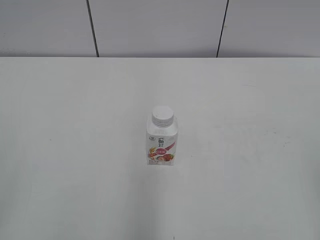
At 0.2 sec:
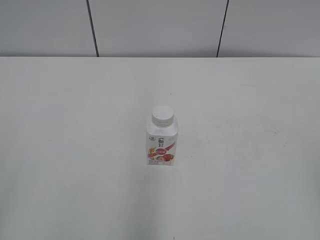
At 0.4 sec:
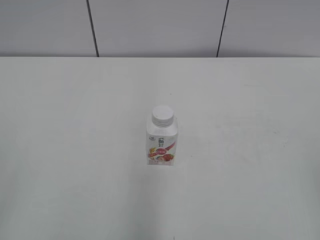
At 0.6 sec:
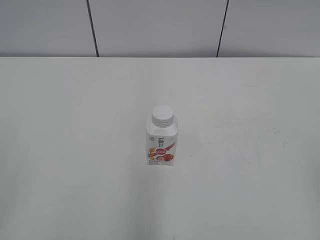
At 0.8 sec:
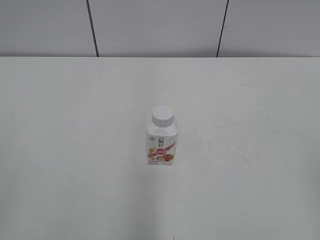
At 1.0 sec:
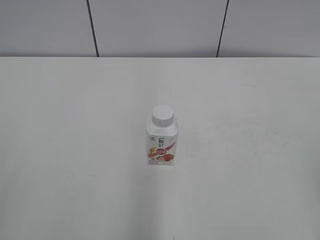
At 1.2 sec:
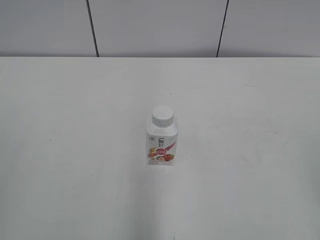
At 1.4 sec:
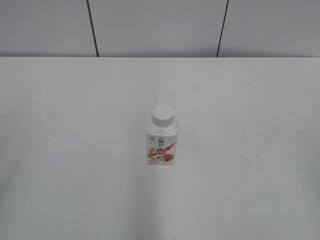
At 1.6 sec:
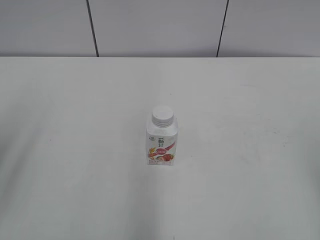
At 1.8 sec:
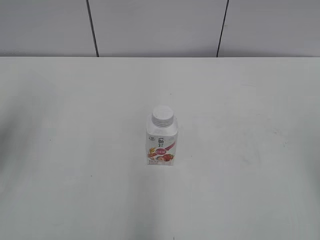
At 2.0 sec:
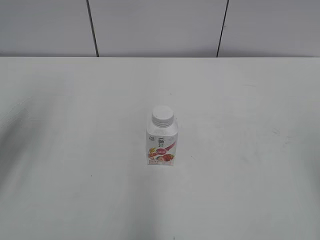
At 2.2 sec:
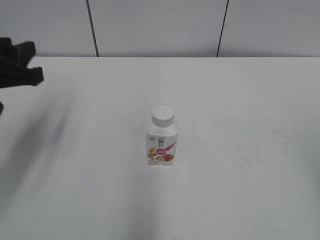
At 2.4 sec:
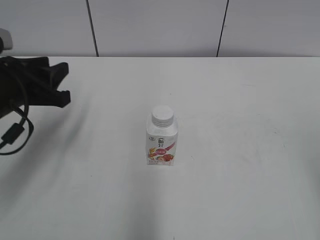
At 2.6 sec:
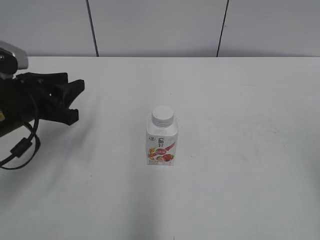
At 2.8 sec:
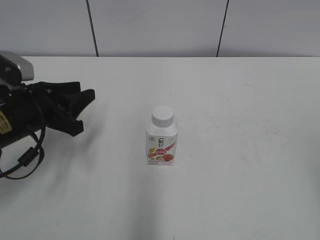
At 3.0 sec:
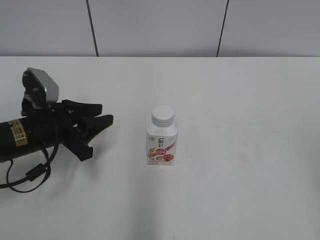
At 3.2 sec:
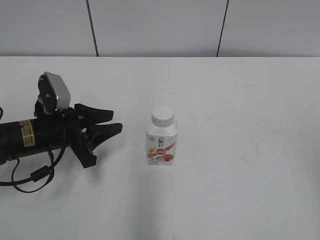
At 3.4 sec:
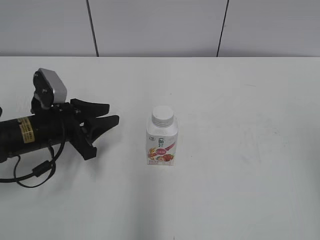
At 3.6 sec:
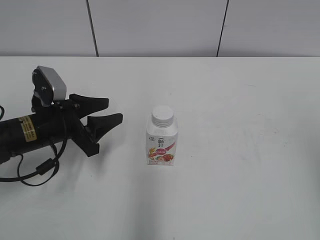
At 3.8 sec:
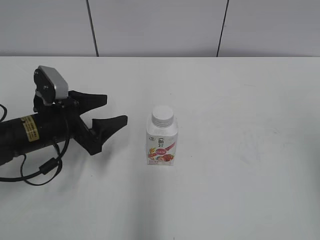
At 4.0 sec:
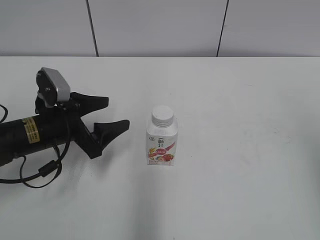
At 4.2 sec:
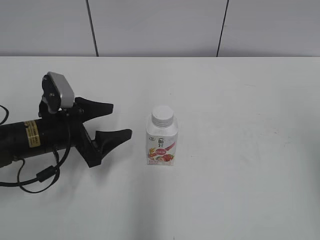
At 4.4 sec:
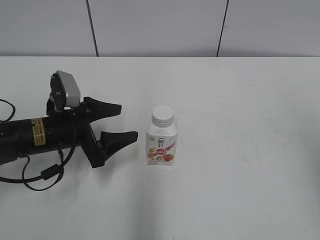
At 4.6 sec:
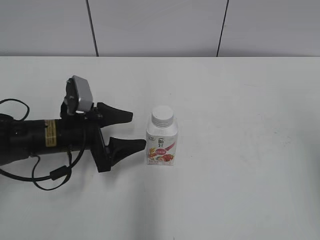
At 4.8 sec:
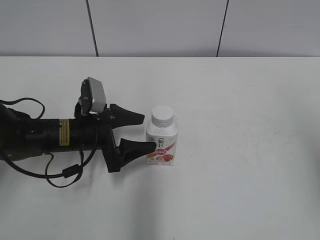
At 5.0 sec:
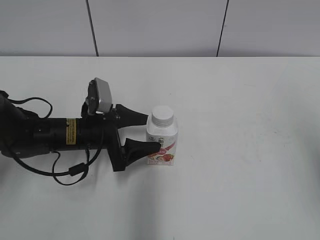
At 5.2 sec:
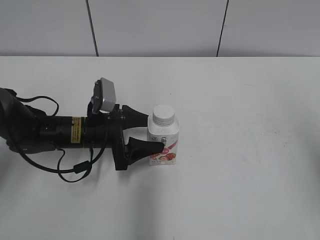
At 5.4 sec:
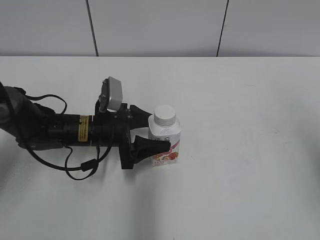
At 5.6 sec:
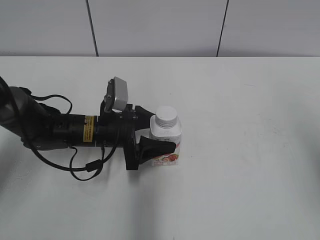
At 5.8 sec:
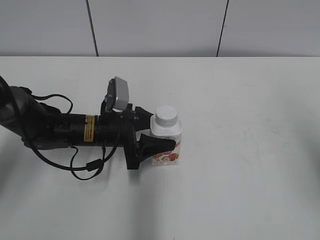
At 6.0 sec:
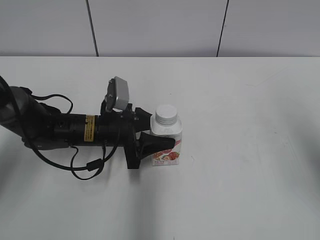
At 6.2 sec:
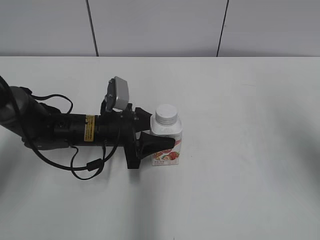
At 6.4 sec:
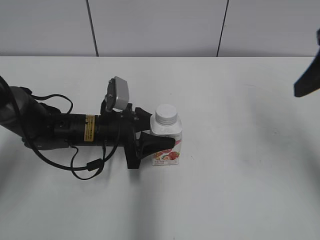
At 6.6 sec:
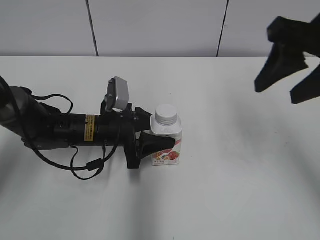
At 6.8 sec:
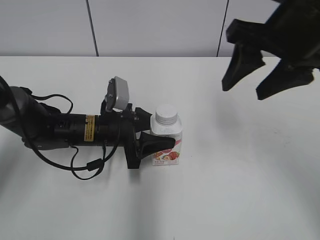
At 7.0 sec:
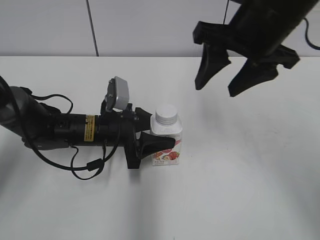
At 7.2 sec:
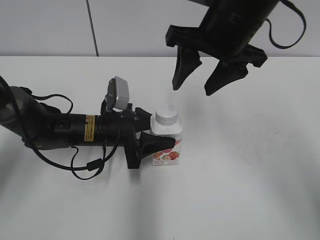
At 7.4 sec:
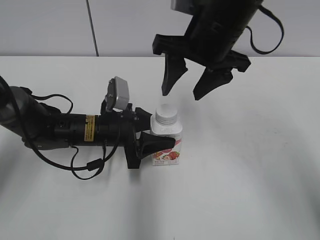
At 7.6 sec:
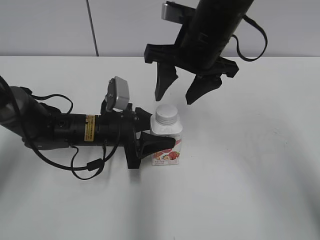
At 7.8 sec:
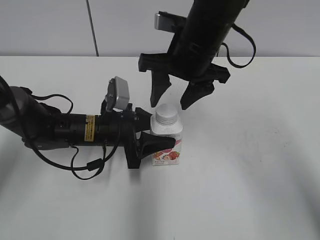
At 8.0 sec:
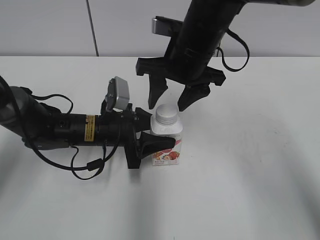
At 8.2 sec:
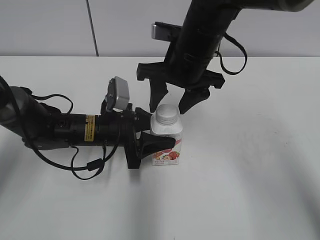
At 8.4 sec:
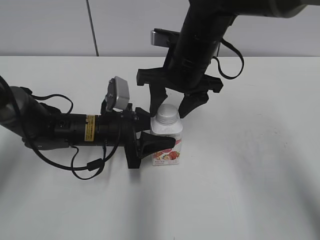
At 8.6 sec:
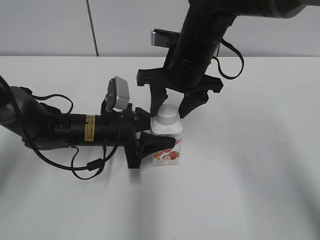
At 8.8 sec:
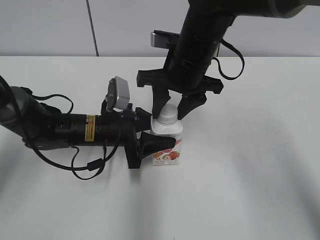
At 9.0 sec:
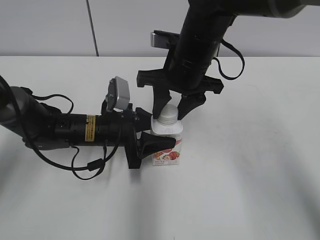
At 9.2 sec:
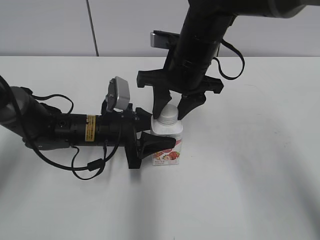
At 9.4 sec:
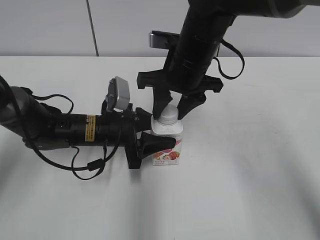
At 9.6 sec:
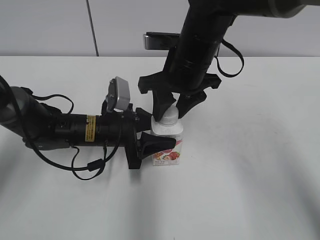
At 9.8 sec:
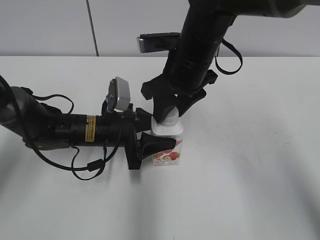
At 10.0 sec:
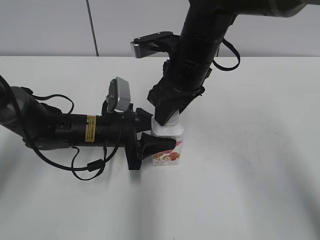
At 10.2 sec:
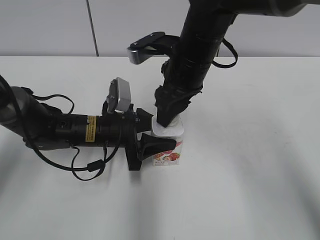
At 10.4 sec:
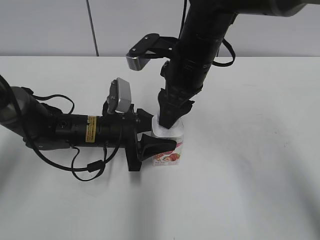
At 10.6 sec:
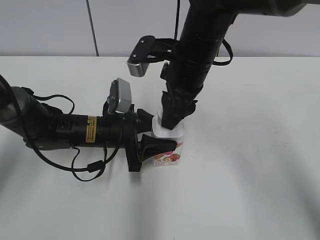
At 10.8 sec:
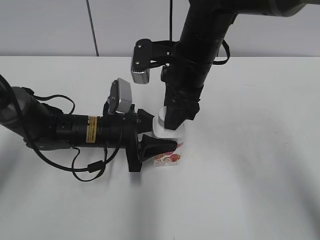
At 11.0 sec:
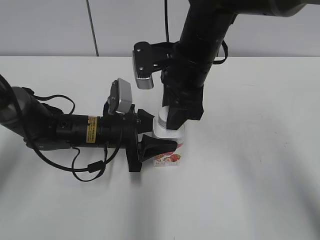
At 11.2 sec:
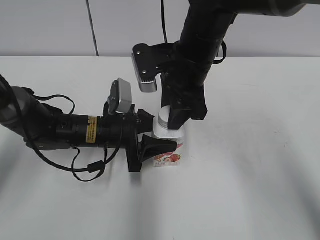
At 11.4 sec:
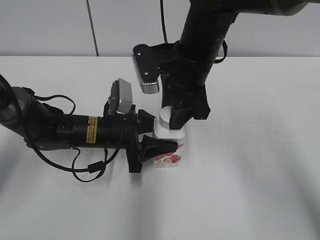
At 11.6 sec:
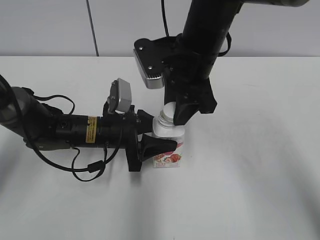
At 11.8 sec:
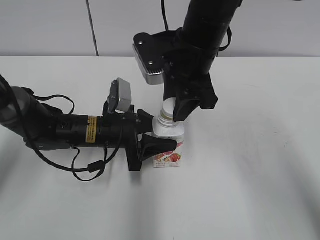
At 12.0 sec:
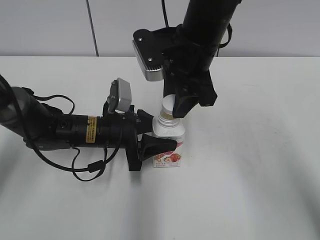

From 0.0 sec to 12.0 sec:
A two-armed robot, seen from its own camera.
Step, from 0.0 sec to 5.8 sec: Grasp the bottle and move it to the center of the table with the left gripper.
From 1.6 sec to 3.0 sec: The left gripper travels downward, forward and to the right by roughly 30 cm.
From 3.0 sec to 4.4 sec: The right gripper heads forward, covering about 5 cm, while the left gripper opens its fingers.
From 4.4 sec to 6.0 sec: The left gripper moves to the right, approximately 5 cm, and closes up; the right gripper shifts roughly 5 cm forward.
From 6.0 sec to 7.6 sec: The right gripper travels to the left and forward by some 30 cm.
From 7.6 sec to 9.0 sec: The right gripper changes place by some 5 cm, and closes up.

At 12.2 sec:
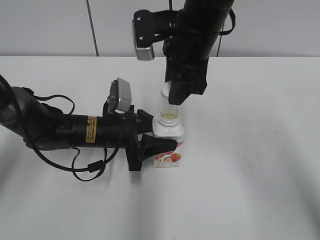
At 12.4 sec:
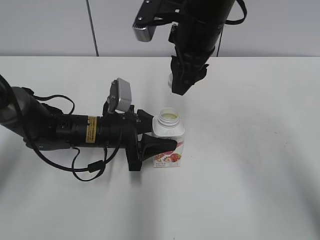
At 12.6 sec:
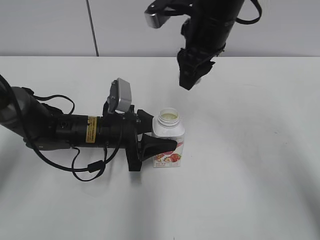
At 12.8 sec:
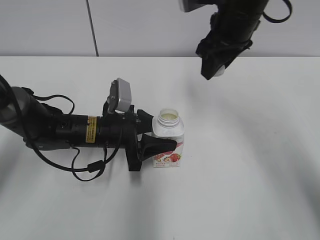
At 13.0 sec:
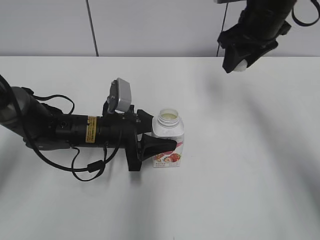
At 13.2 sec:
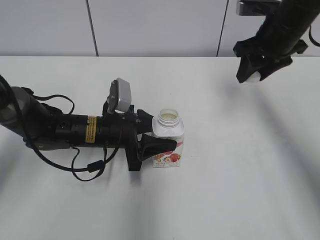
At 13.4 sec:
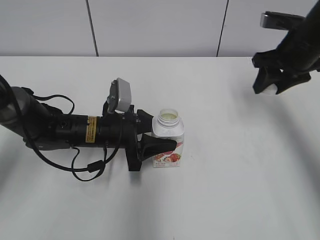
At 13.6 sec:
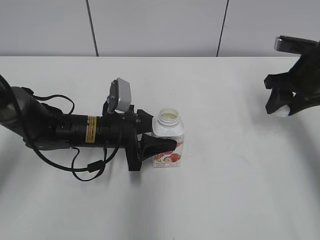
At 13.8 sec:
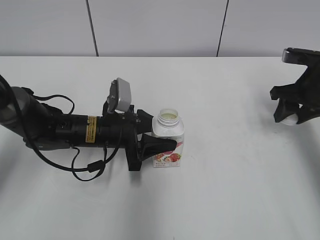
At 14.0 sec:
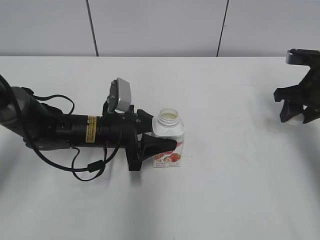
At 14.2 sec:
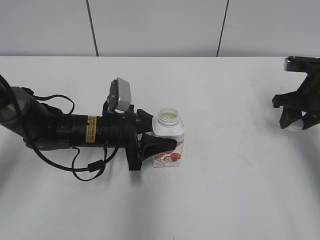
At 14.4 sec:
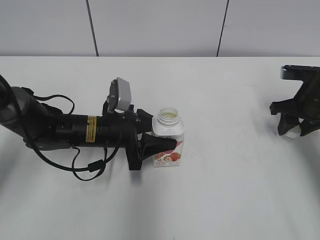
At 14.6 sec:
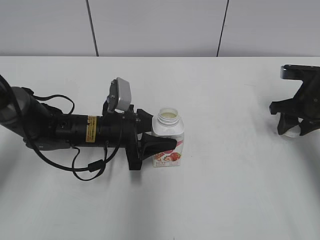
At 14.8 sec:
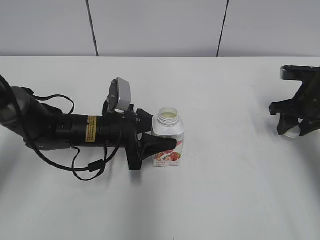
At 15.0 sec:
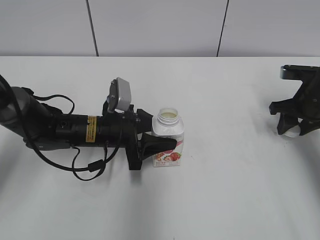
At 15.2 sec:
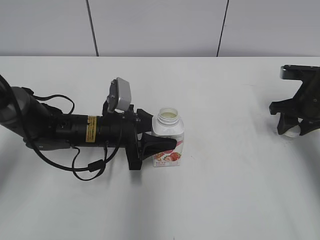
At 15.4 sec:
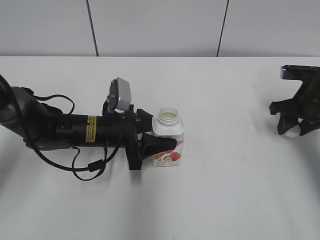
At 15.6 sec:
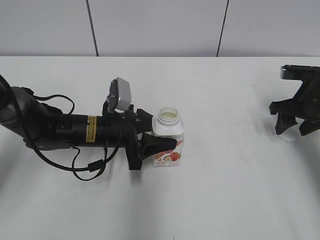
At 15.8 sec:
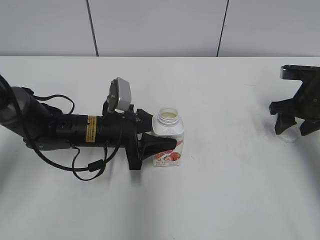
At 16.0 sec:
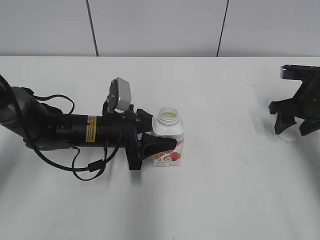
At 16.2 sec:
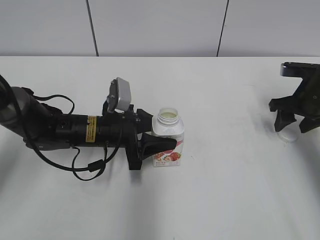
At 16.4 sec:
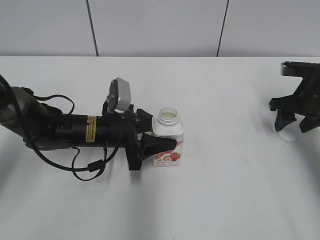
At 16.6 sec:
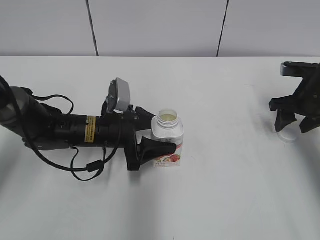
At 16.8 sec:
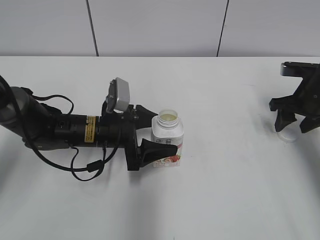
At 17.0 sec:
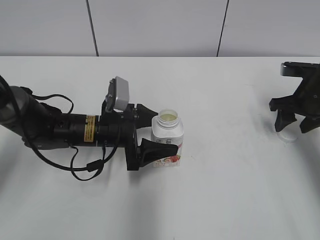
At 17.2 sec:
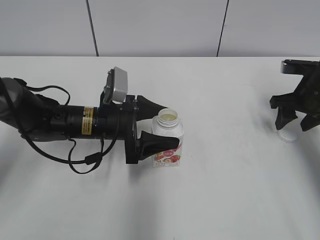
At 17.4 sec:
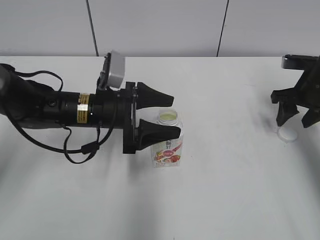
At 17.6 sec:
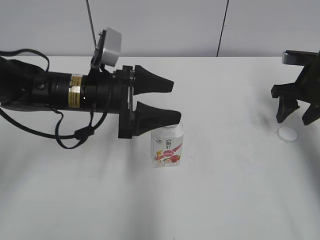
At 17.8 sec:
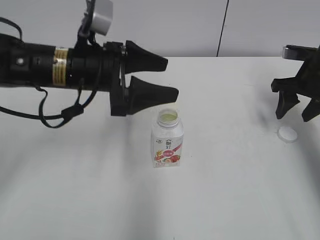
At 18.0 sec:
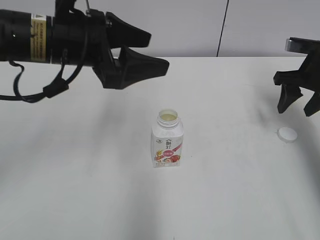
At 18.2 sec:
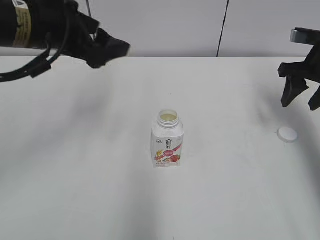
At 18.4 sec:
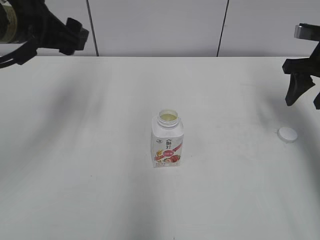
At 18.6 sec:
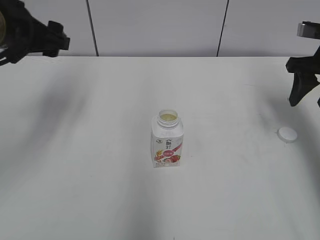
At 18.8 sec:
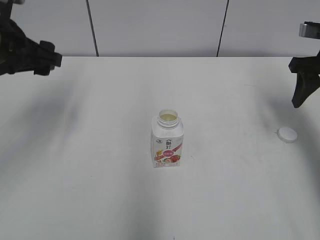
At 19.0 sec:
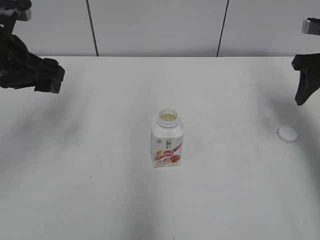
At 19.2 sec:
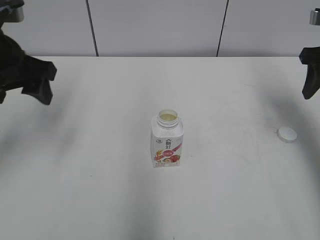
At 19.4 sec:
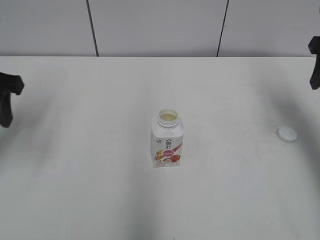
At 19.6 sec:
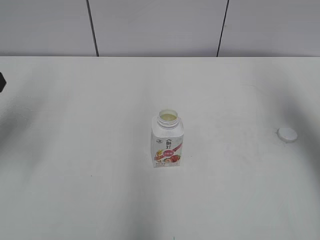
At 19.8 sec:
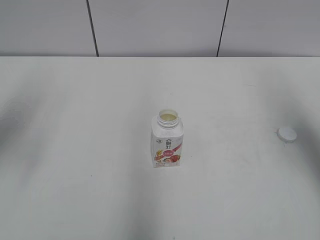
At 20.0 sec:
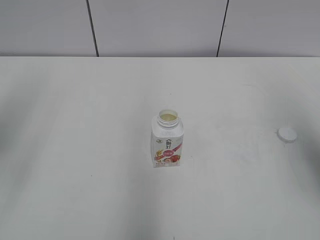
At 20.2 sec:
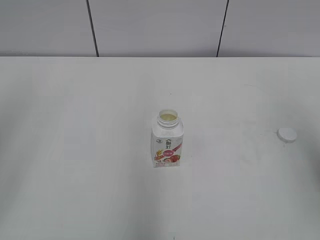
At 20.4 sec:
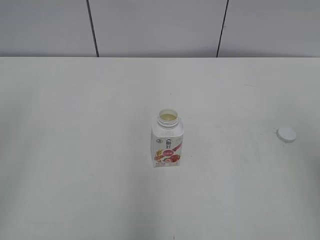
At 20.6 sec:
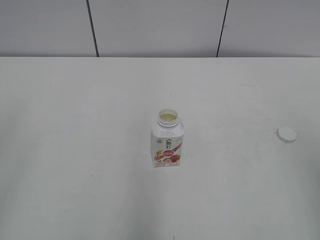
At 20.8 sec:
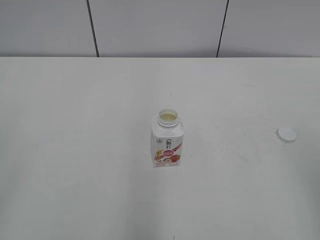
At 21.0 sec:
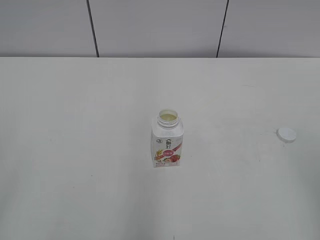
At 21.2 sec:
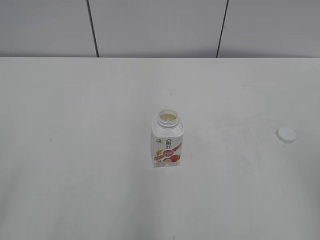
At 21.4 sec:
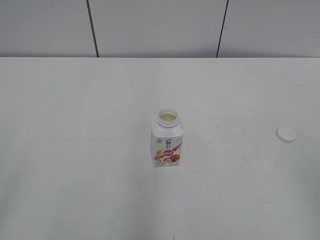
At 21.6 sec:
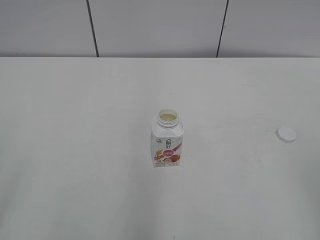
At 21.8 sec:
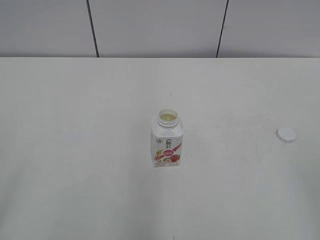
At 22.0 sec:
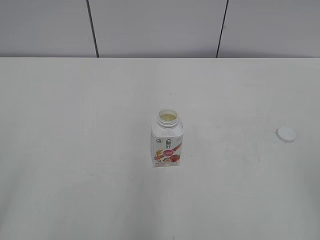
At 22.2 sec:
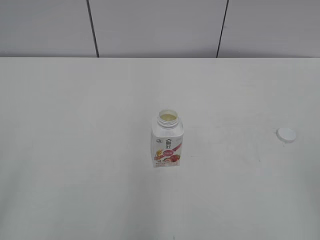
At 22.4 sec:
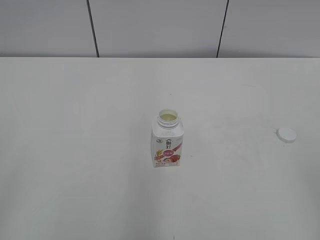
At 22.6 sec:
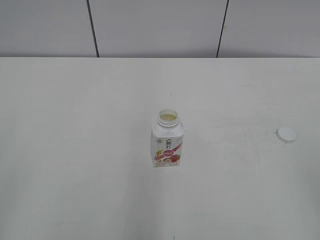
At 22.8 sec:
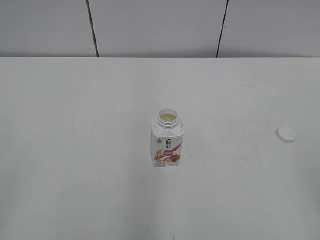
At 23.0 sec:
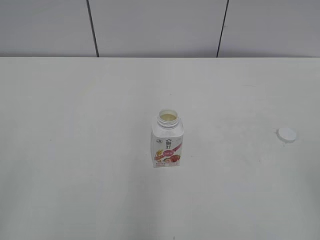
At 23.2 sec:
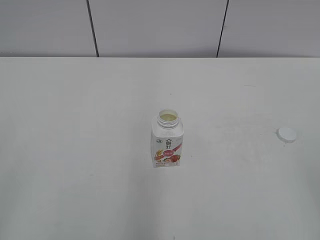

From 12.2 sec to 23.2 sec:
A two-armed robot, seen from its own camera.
Step, from 12.4 sec to 15.6 sec: Place the bottle cap on the table with the right gripper.
Step, from 15.8 sec to 17.2 sec: Place the bottle on the table with the left gripper.
From 12.2 sec to 13.8 sec: The right gripper moves to the right, about 25 cm.
From 13.8 sec to 15.4 sec: The grippers move only a little.
From 15.4 sec to 17.0 sec: The right gripper opens up. Meanwhile the left gripper opens up.
From 17.0 sec to 18.4 sec: The left gripper travels upward by approximately 20 cm; the right gripper is displaced upward by approximately 10 cm.
From 18.4 sec to 20.0 sec: The left gripper goes approximately 15 cm backward, to the left and upward, and closes up, while the right gripper travels backward and upward by roughly 20 cm.
From 20.0 sec to 21.6 sec: The right gripper shifts approximately 20 cm backward.
